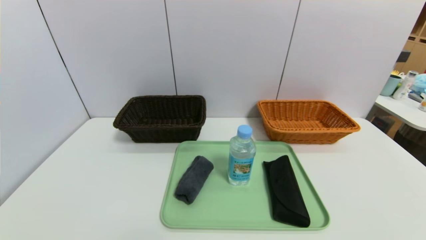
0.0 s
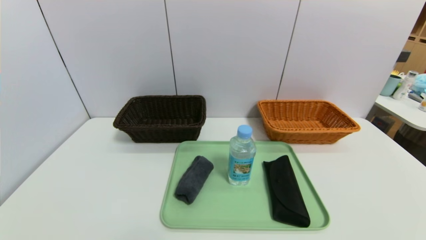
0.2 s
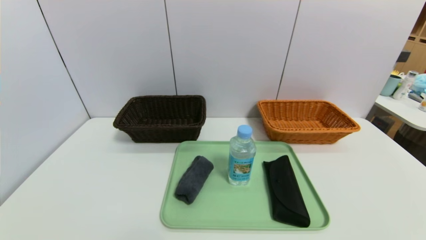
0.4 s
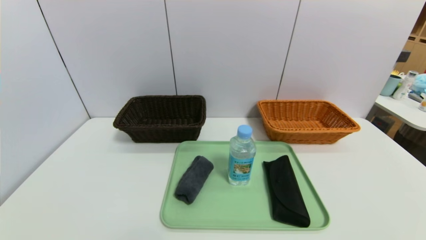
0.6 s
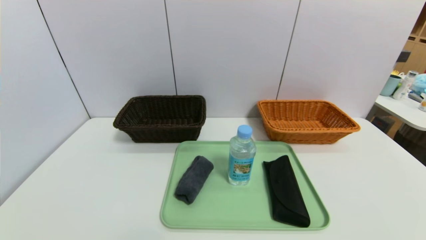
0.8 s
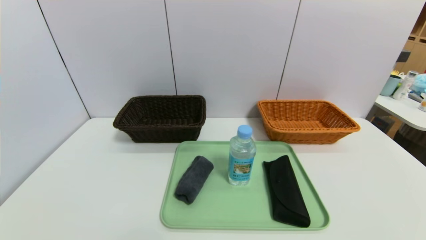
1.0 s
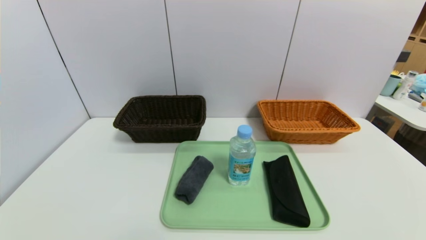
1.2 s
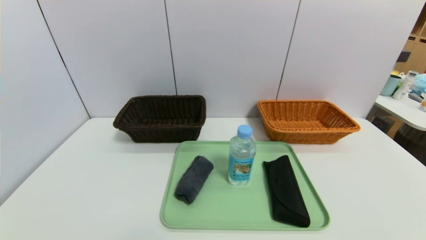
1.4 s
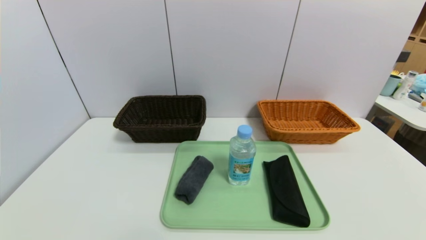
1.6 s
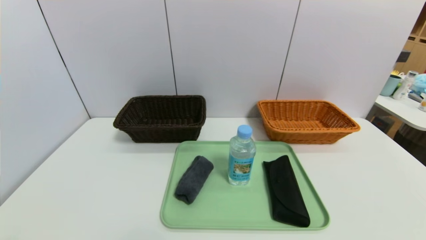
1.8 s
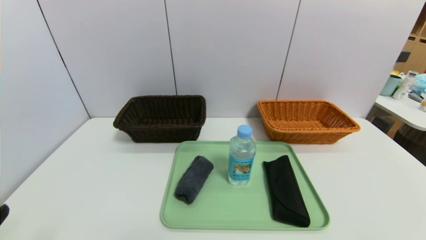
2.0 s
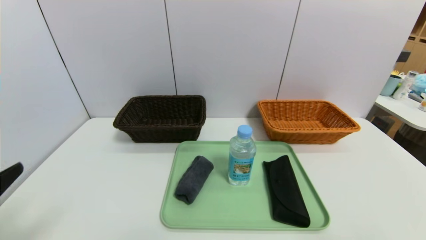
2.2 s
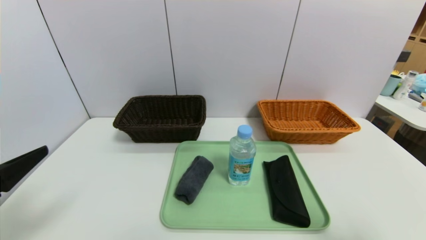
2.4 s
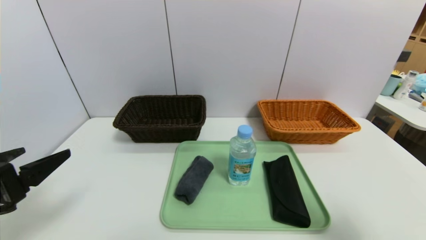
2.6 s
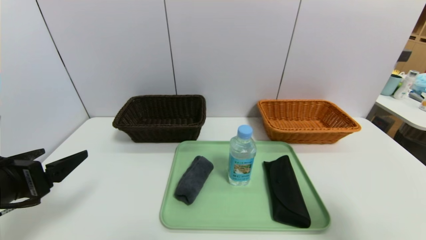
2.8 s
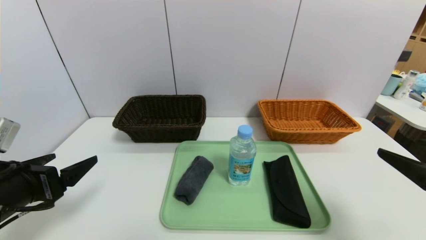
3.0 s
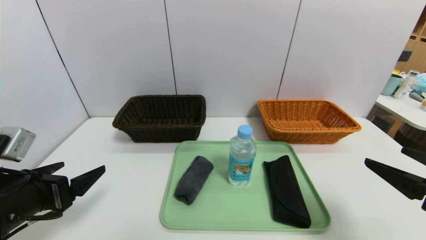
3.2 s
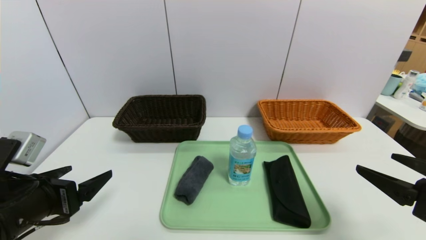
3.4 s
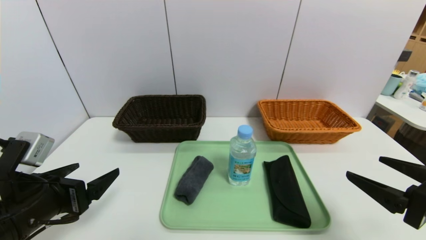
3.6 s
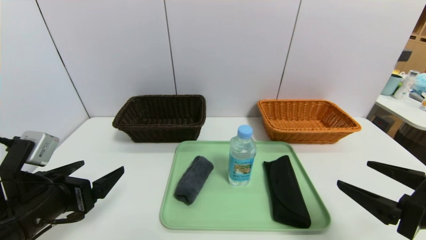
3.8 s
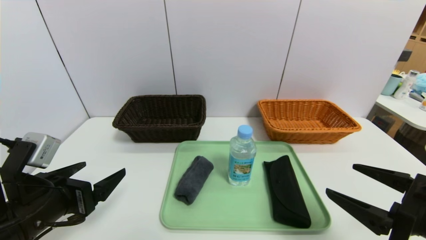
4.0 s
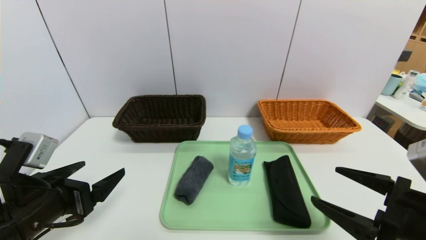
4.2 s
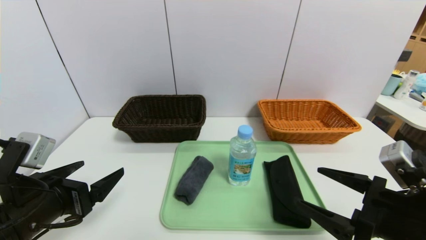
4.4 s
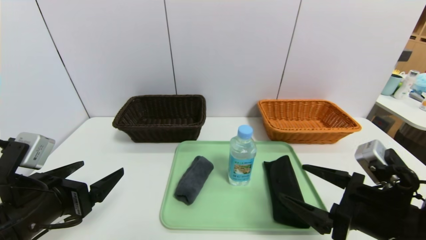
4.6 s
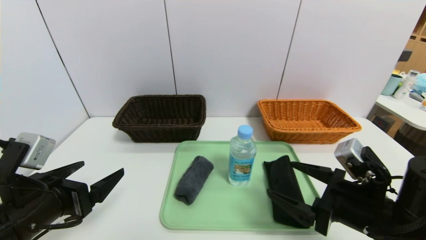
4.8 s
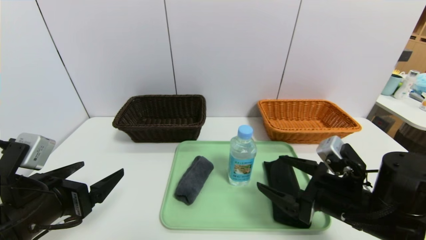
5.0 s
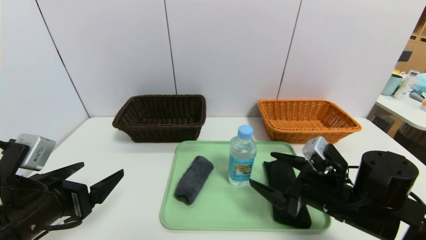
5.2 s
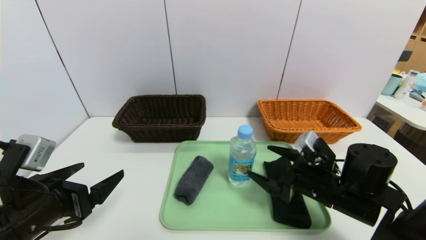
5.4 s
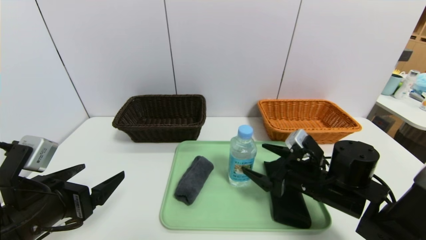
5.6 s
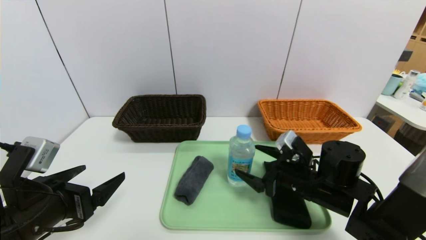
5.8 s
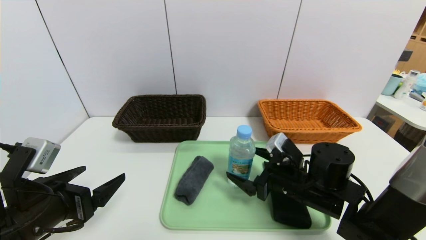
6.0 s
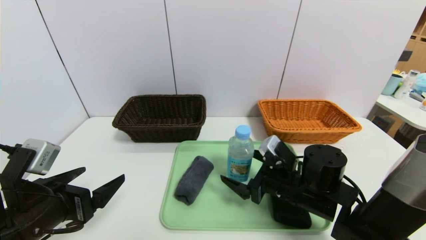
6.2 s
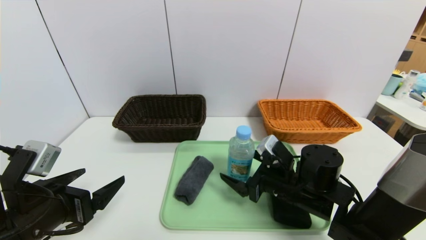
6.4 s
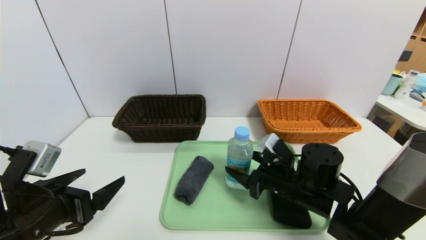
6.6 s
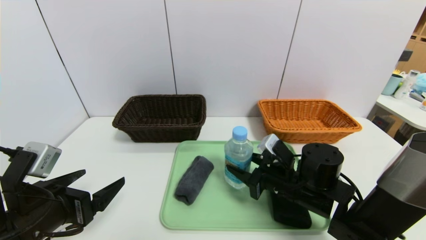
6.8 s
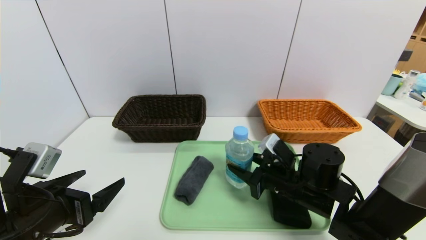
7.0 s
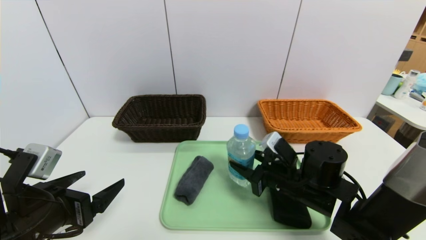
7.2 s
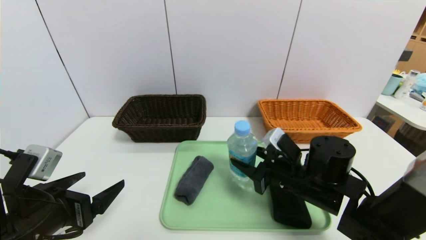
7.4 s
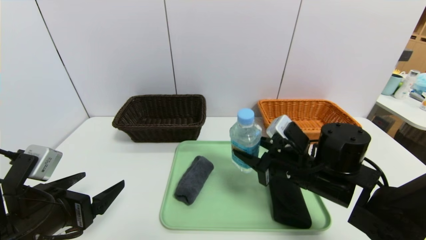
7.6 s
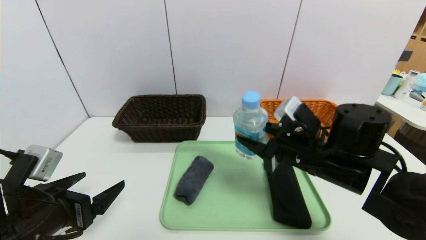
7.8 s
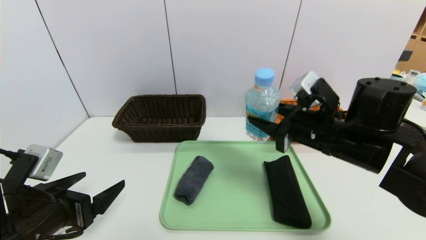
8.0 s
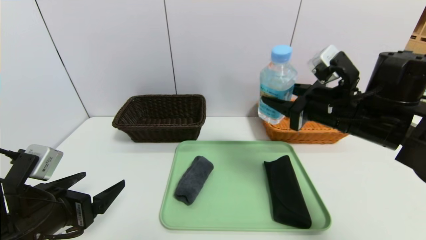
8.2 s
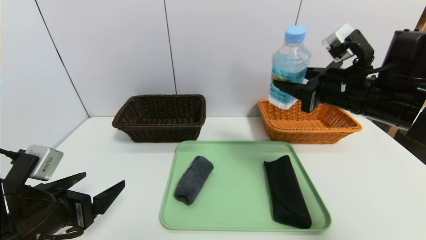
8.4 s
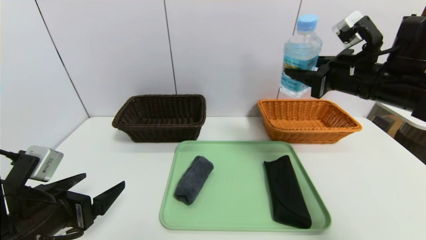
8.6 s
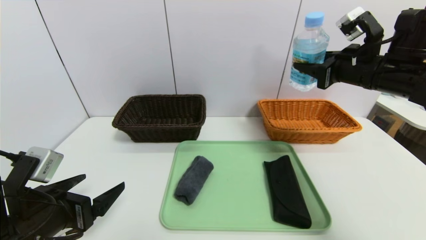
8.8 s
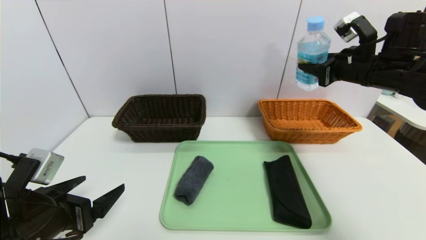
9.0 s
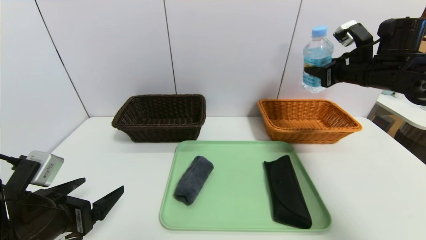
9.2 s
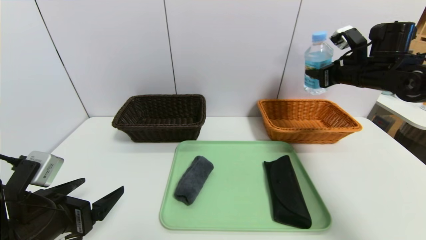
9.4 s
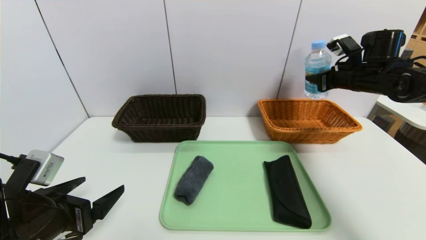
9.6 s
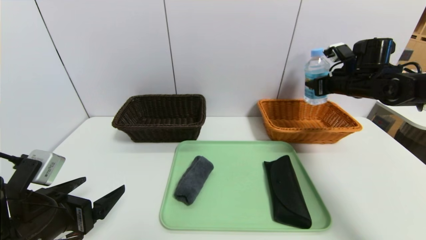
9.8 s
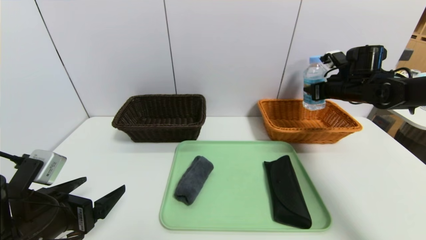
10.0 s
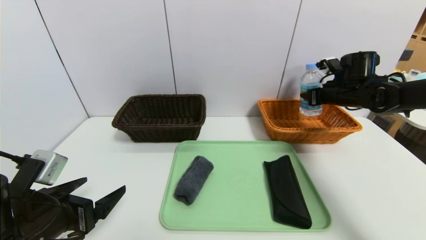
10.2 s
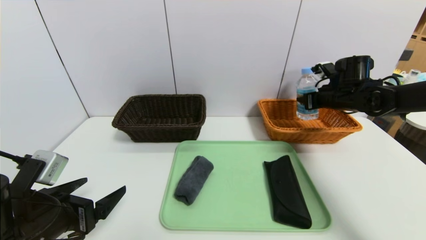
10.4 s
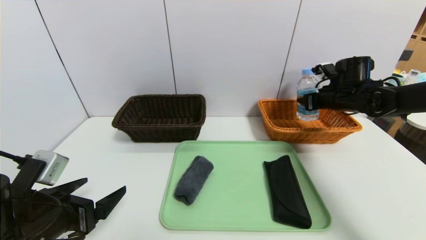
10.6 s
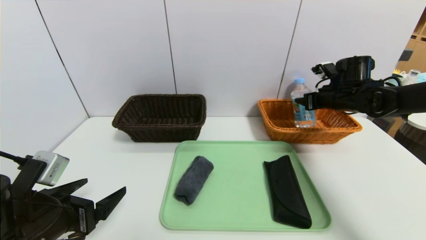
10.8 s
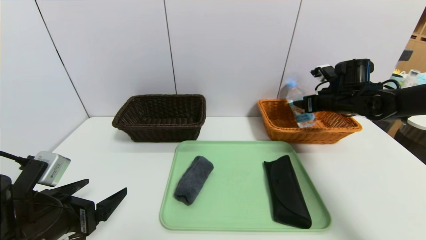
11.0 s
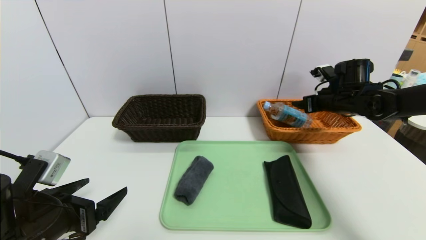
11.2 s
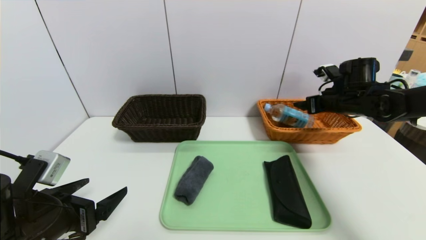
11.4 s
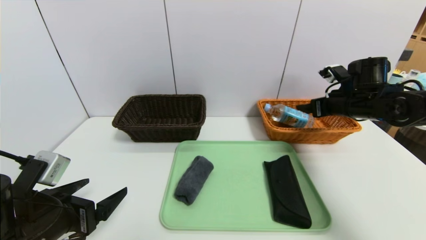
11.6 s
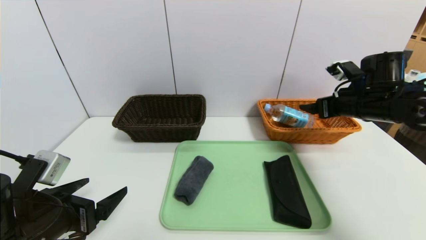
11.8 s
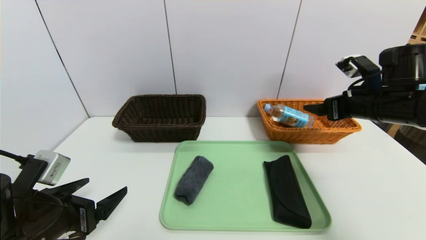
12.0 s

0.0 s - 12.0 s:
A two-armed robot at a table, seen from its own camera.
Task of the whole recording: place the food in the right basket with the right gripper, and place the non food items in the left basket with the left gripper.
Step, 0.0 s - 11.2 s: Grasp the soda water and put it in the right basket.
1.6 s - 3.0 s: The two grippers go approximately 15 cm forward and upward.
3.0 s - 4.4 s: The right gripper moves to the left and downward, some 10 cm.
4.4 s - 6.0 s: The right gripper is displaced forward, to the left and downward by approximately 15 cm.
6.0 s - 7.6 s: The right gripper heads upward, covering some 5 cm, and closes up.
7.6 s - 9.0 s: The right gripper heads upward, to the right and forward, covering roughly 20 cm.
9.0 s - 10.4 s: The right gripper goes approximately 10 cm downward and forward.
10.4 s - 12.0 s: The right gripper shifts approximately 15 cm backward, and opens its fingers.

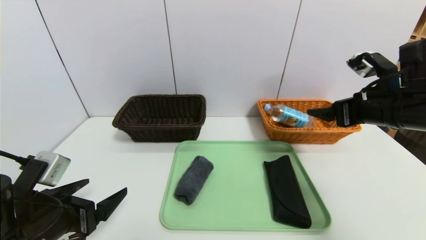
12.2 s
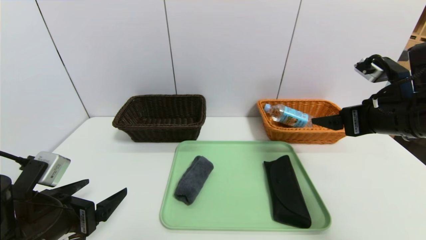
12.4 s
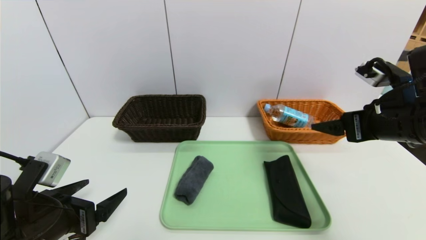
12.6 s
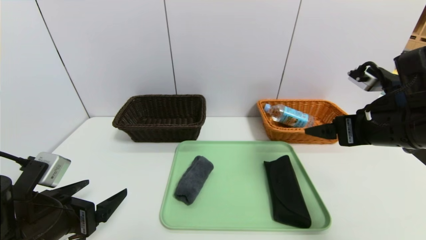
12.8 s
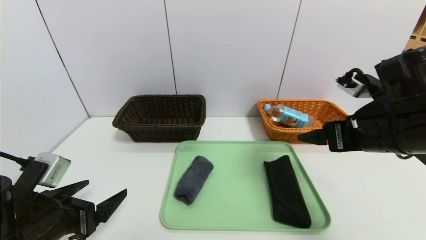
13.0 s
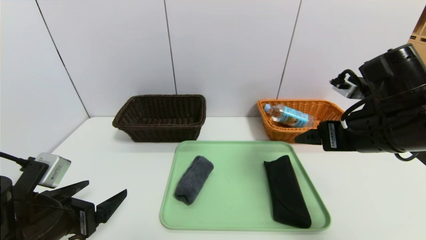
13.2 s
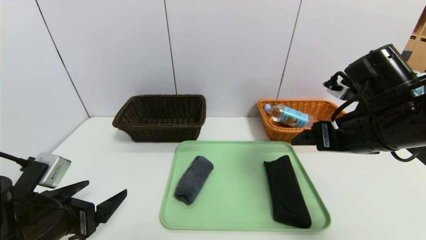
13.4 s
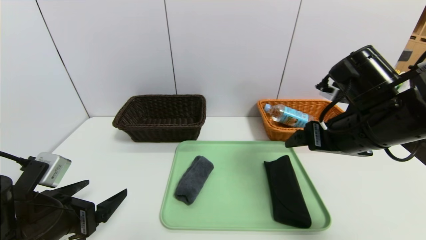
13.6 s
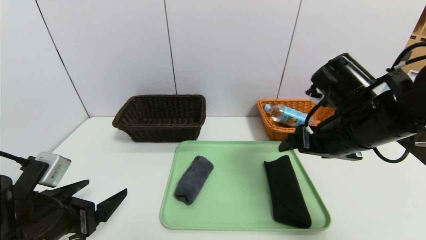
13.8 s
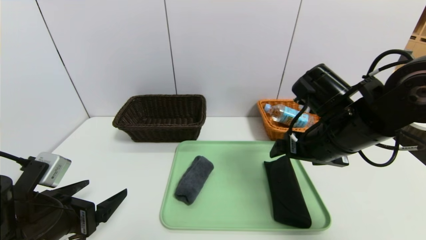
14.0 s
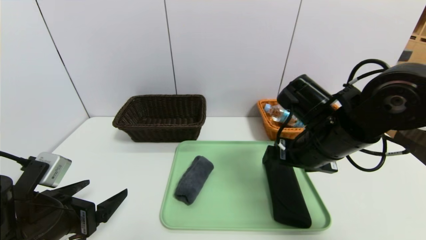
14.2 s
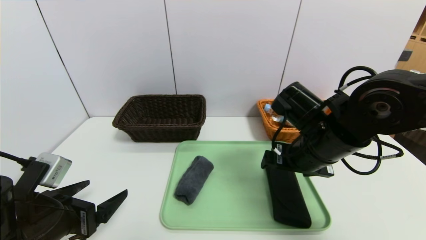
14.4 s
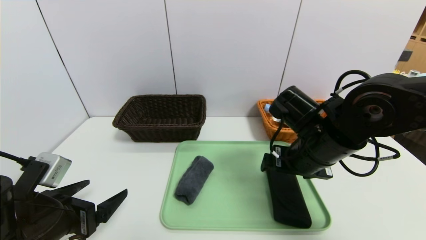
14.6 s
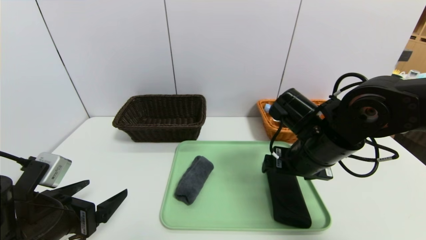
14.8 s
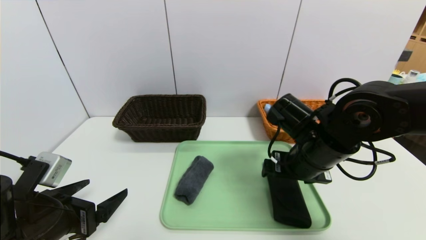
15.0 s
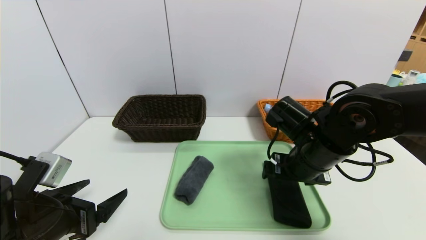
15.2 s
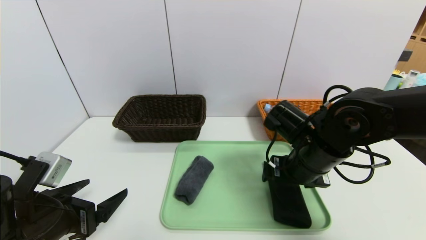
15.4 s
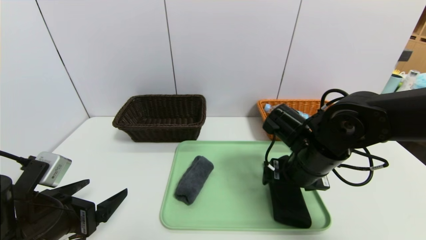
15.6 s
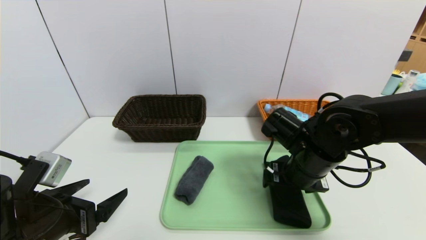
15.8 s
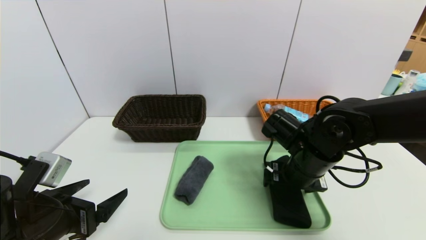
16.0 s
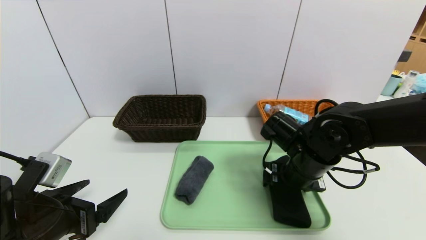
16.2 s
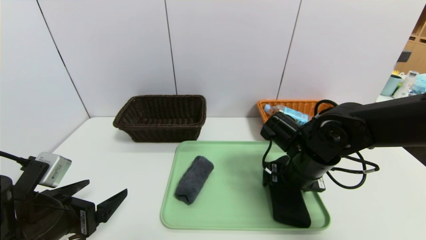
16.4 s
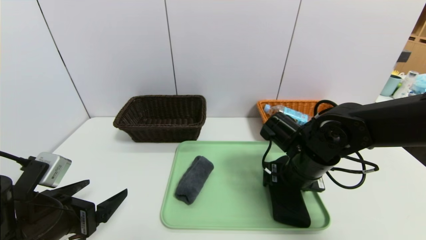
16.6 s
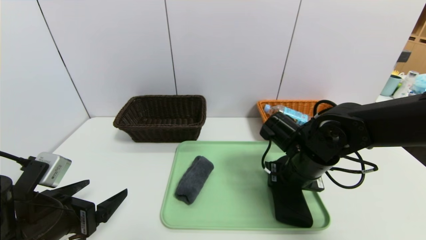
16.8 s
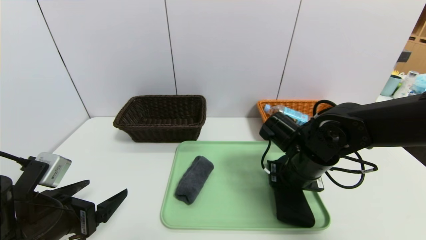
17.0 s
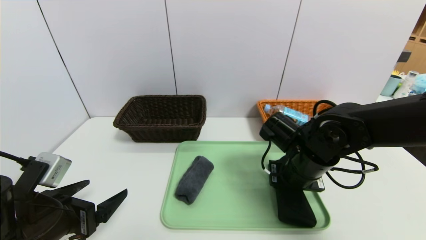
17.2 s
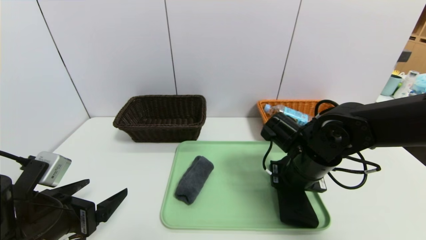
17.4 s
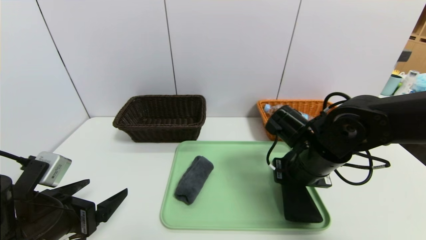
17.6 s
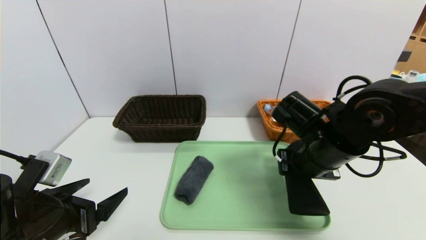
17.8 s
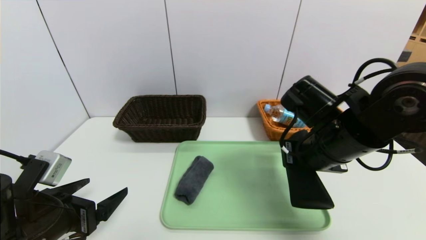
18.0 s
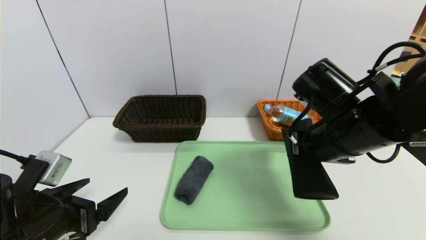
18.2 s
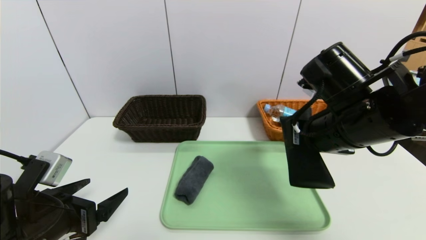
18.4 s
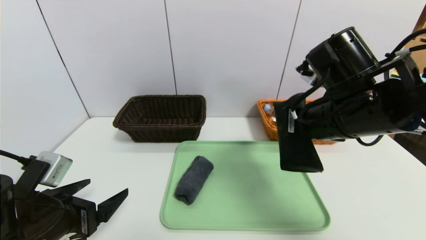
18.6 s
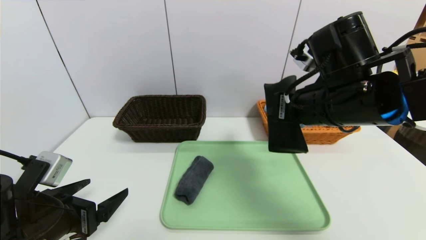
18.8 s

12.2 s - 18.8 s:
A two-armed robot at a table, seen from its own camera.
Task of the whole recording: place the food in the right basket with the right gripper, and place the non food items in the left basket with the left gripper.
12.2 s - 13.8 s: The right gripper shifts about 10 cm to the left.
13.8 s - 15.4 s: The right gripper heads downward, covering approximately 5 cm.
15.4 s - 17.2 s: The right gripper closes its fingers.
17.2 s - 18.8 s: The right gripper goes about 15 cm upward.
